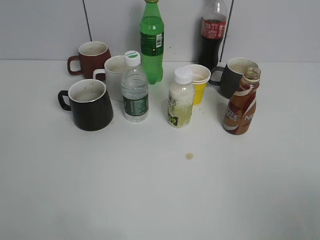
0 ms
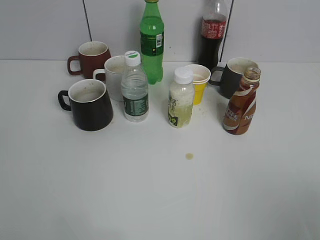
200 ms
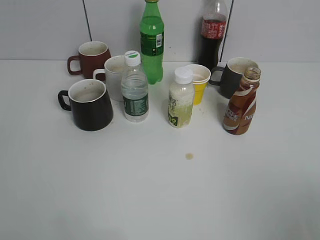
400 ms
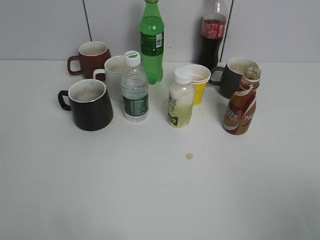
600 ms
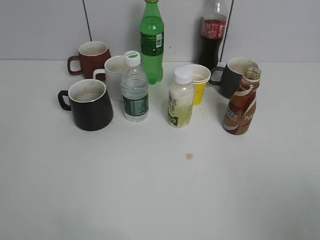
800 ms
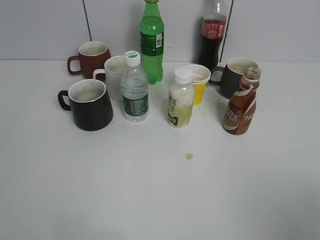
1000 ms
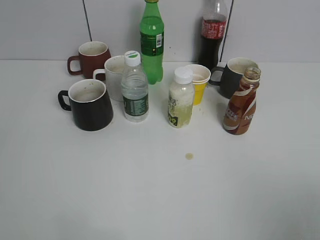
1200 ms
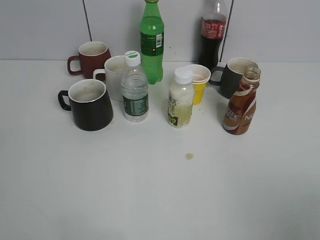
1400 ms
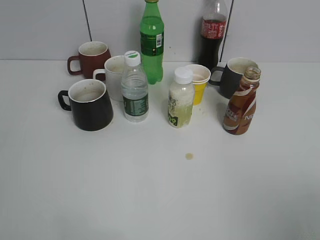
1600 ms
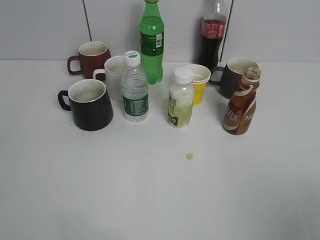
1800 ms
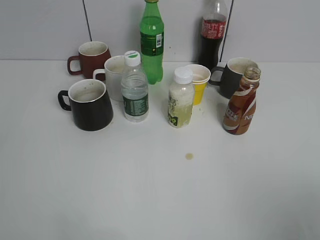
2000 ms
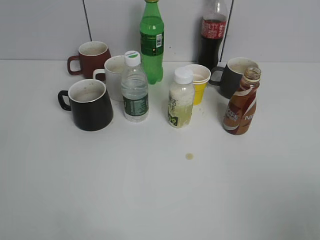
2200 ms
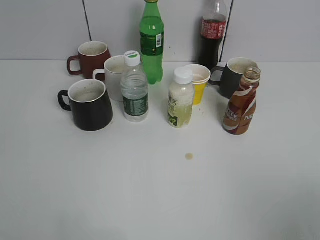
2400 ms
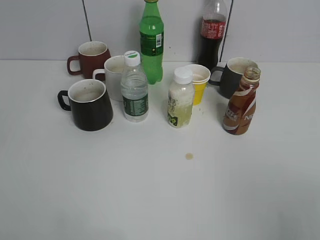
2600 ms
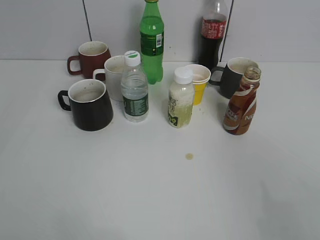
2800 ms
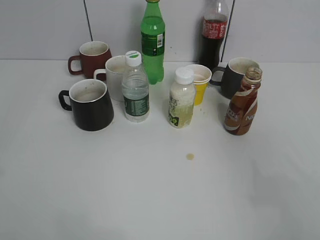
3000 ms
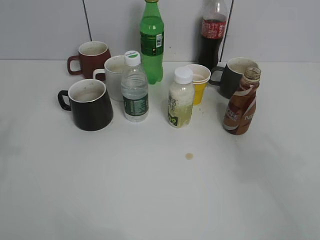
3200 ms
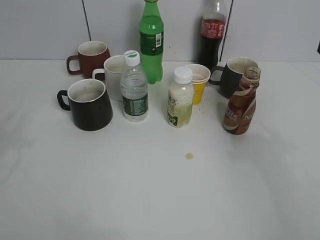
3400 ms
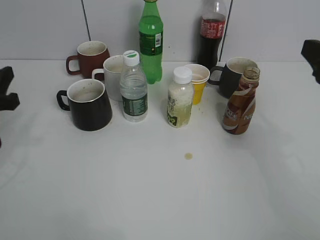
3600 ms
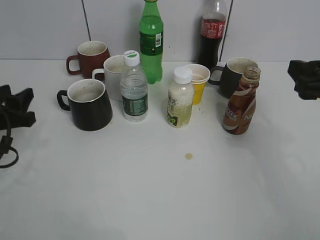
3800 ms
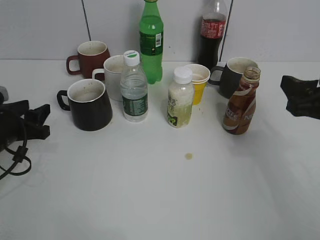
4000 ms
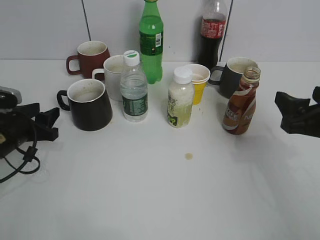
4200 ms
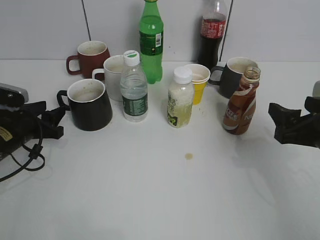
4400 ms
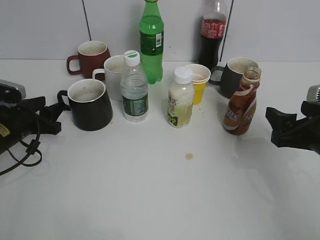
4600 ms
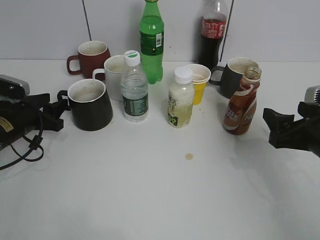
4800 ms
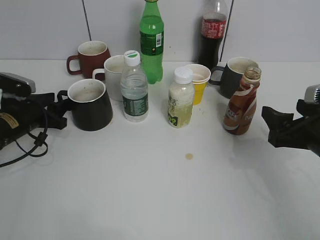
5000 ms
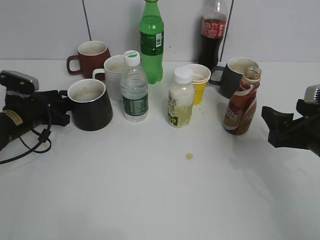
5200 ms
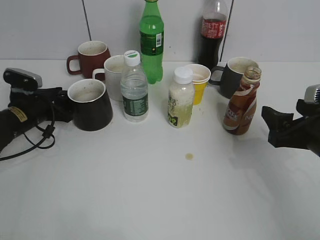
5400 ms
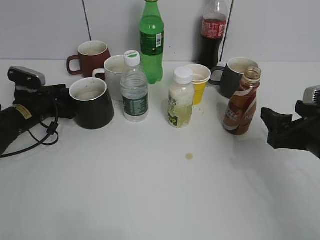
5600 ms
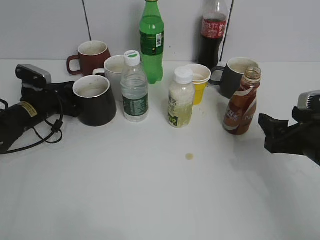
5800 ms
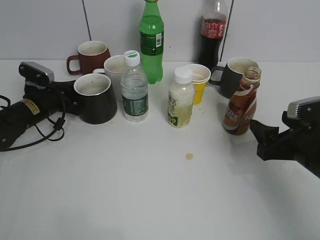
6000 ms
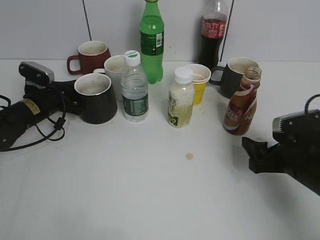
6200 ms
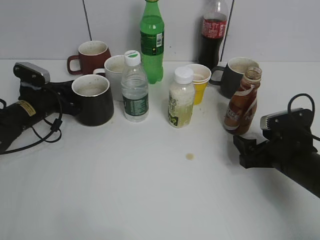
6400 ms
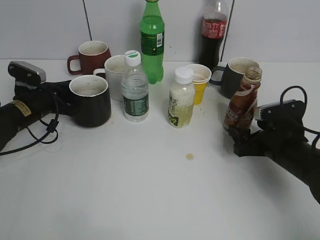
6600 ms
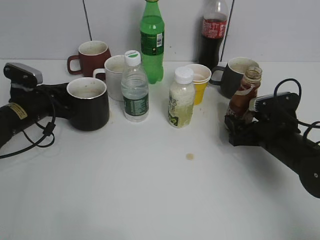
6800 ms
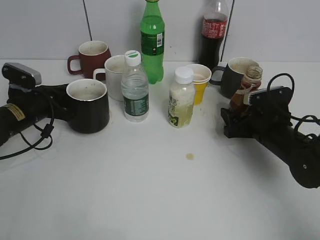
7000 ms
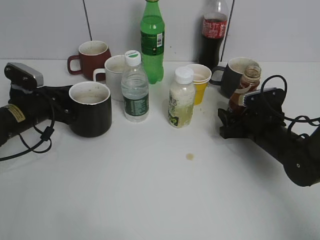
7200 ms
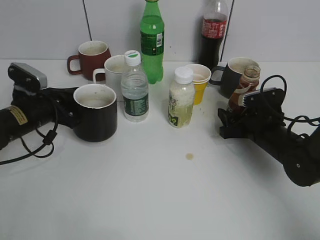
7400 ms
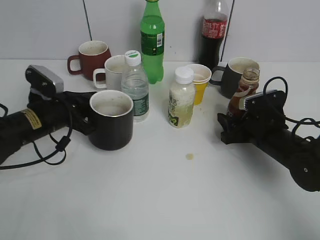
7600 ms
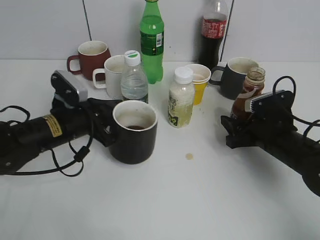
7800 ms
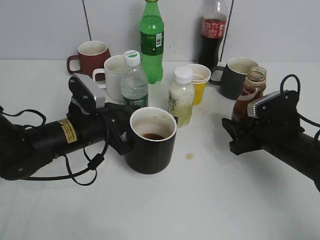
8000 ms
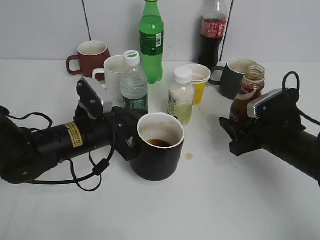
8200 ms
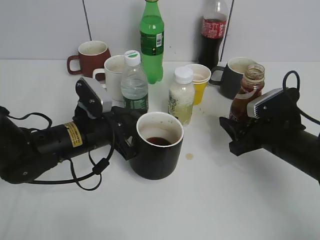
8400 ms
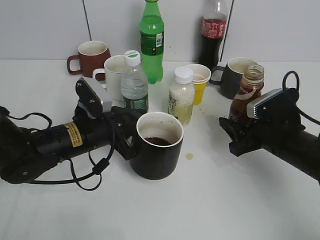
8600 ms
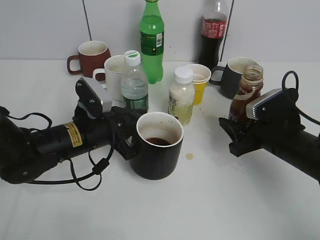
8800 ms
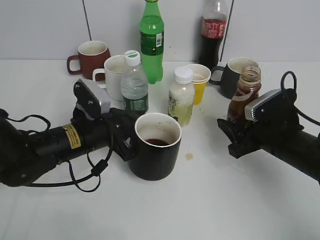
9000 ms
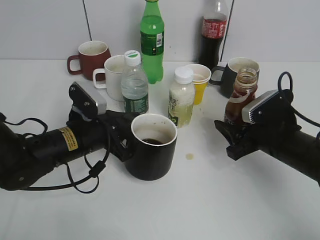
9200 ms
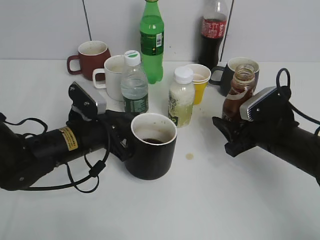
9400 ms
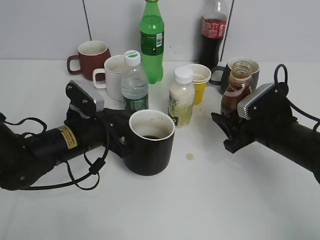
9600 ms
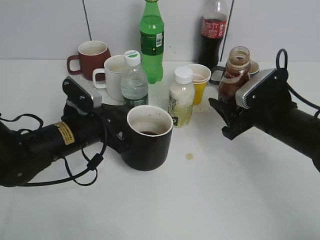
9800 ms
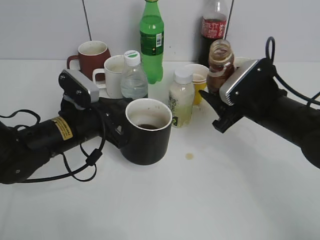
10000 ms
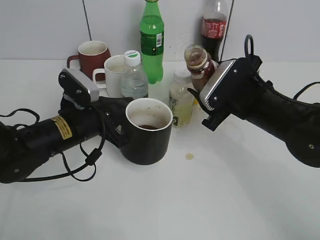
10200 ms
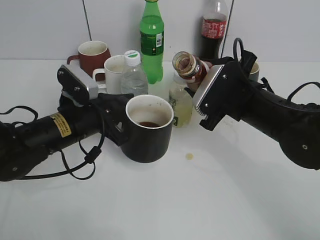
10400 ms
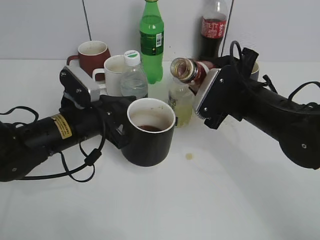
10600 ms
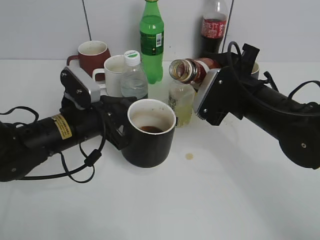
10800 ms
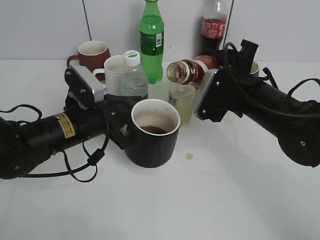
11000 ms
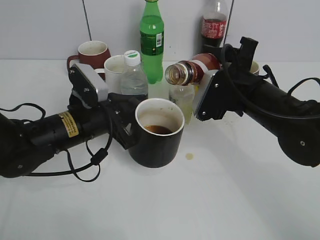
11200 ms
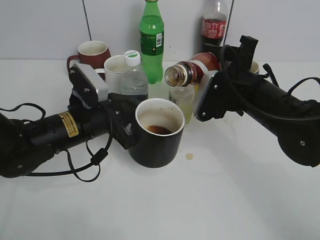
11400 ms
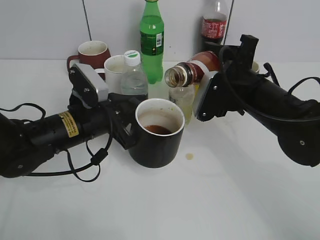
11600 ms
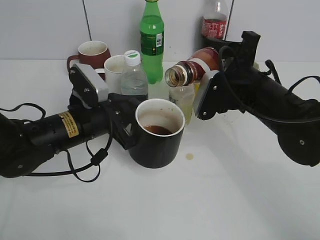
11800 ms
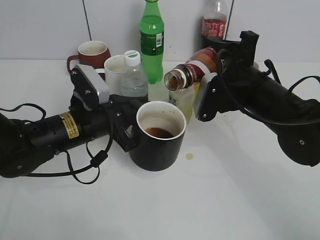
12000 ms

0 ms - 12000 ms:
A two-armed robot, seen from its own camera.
Step, 2200 ms - 5400 ms: Grasp the black cup with left gripper.
Step, 5600 ms - 6200 ms: Grasp the bottle with coffee with right gripper.
Step, 6400 ms - 7000 ms: Lift the black cup with left gripper.
1600 ms - 3000 ms: Both grippers travel together forward, about 10 cm.
3000 ms - 4400 ms: The two grippers go some 25 cm downward and forward. The left gripper opens its fingers.
4400 ms - 6000 ms: The left gripper travels forward by some 10 cm, and closes up.
6000 ms - 7600 ms: The right gripper is displaced forward and downward by approximately 10 cm, and closes up. The left gripper goes about 10 cm backward.
7600 ms - 9000 ms: The right gripper moves some 5 cm, while the left gripper shifts about 10 cm to the right.
9000 ms - 10400 ms: The right gripper shifts about 10 cm to the left and upward.

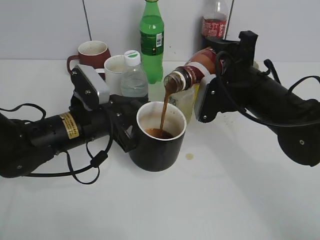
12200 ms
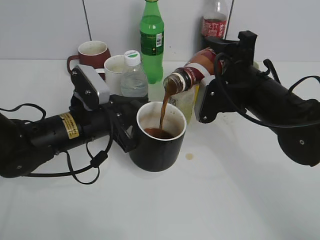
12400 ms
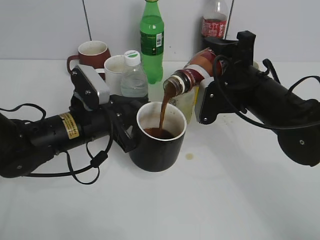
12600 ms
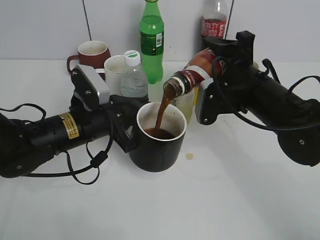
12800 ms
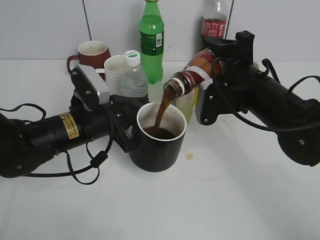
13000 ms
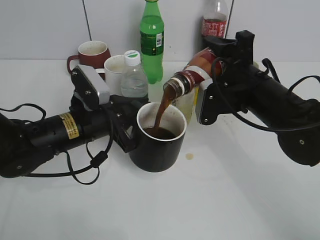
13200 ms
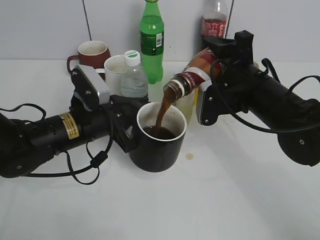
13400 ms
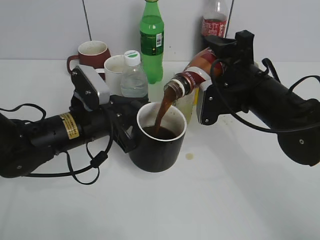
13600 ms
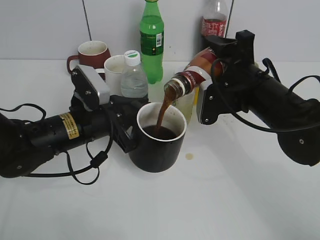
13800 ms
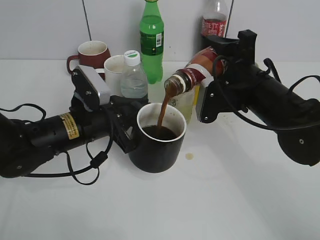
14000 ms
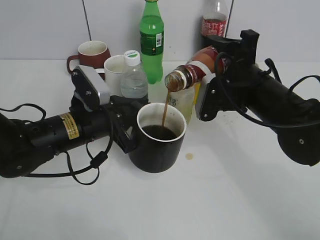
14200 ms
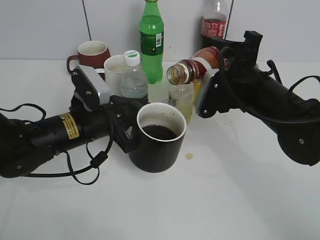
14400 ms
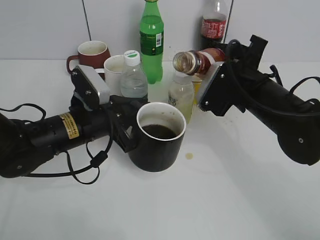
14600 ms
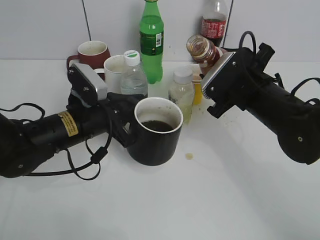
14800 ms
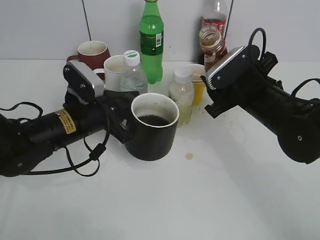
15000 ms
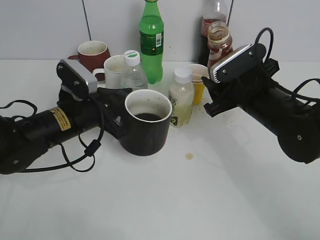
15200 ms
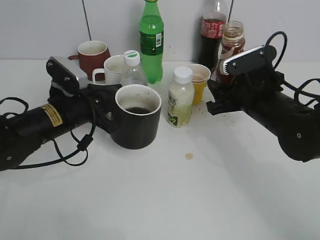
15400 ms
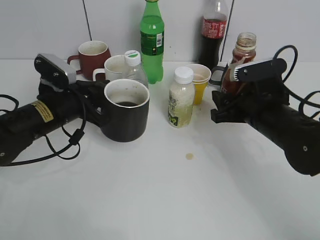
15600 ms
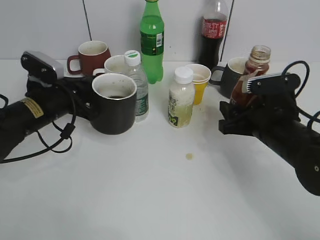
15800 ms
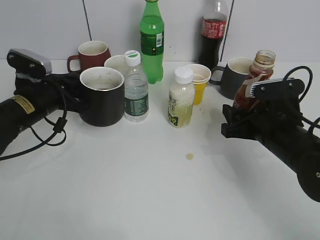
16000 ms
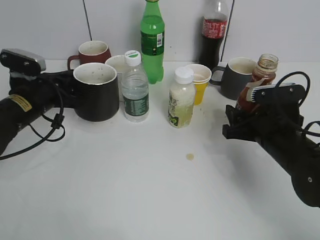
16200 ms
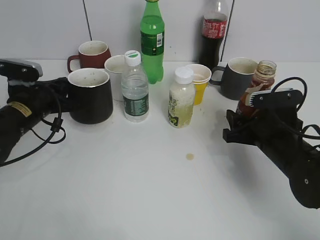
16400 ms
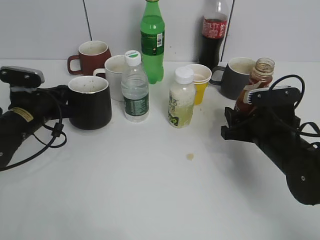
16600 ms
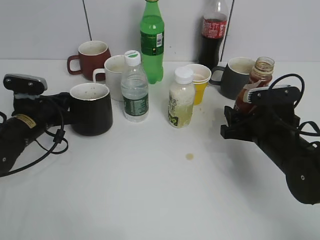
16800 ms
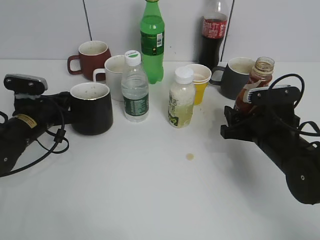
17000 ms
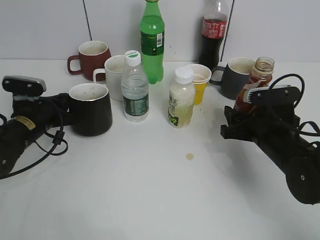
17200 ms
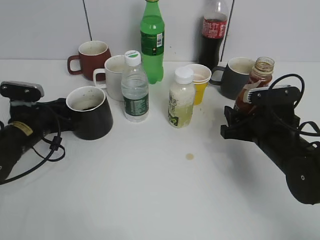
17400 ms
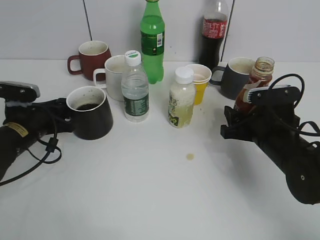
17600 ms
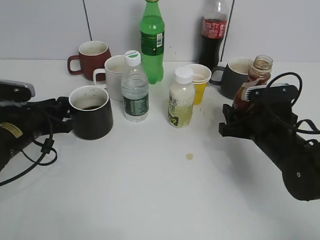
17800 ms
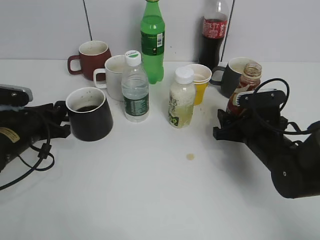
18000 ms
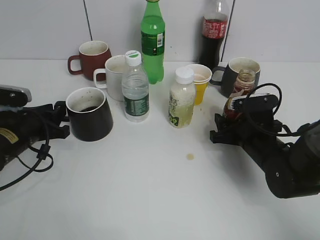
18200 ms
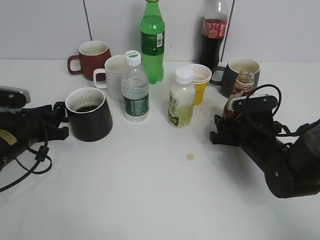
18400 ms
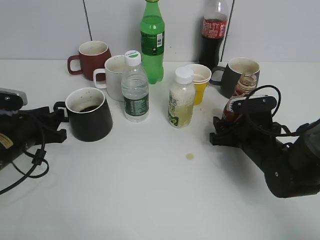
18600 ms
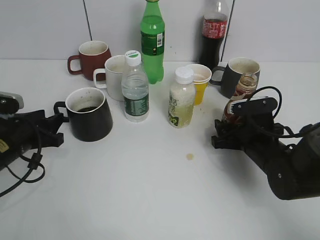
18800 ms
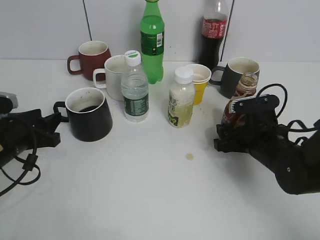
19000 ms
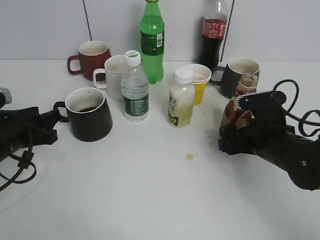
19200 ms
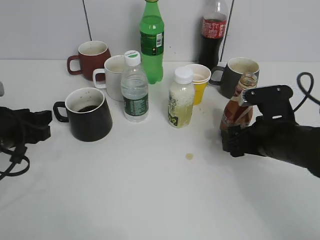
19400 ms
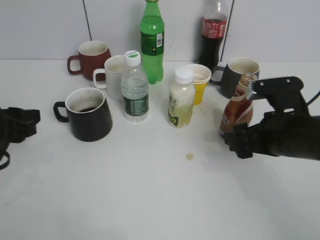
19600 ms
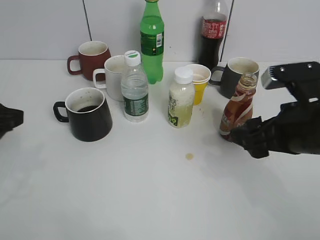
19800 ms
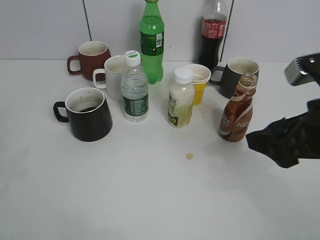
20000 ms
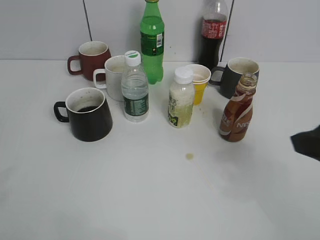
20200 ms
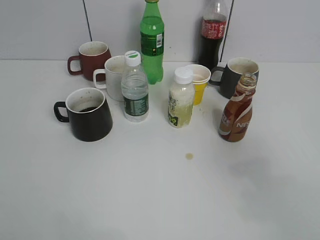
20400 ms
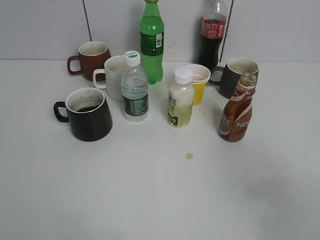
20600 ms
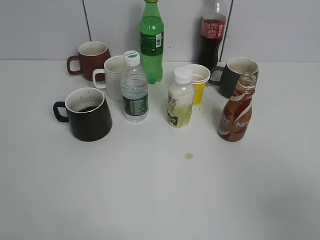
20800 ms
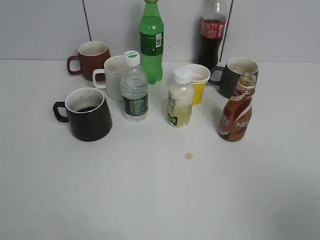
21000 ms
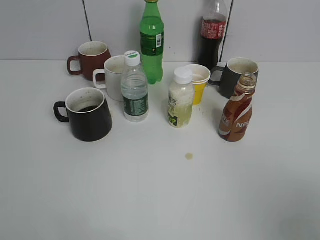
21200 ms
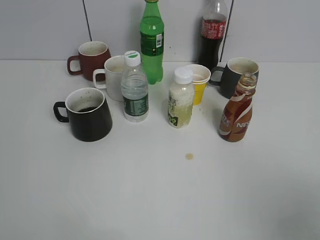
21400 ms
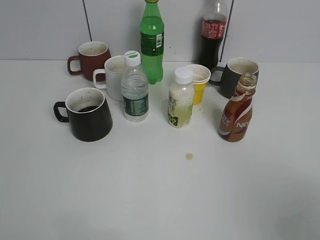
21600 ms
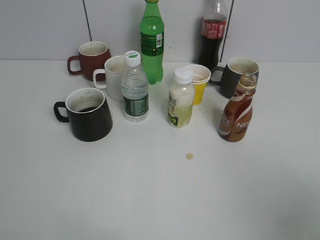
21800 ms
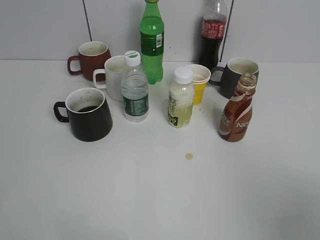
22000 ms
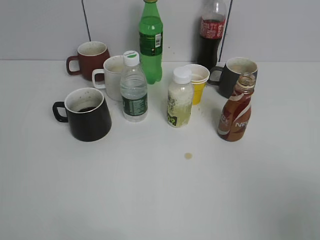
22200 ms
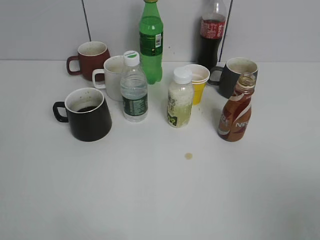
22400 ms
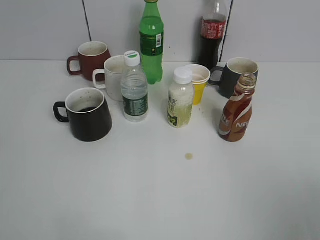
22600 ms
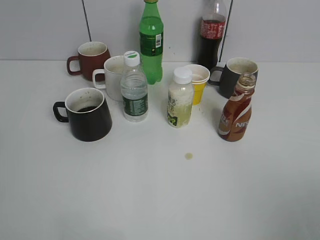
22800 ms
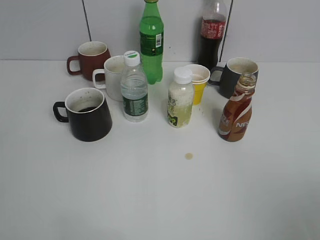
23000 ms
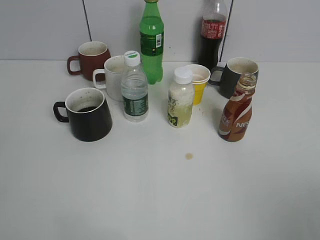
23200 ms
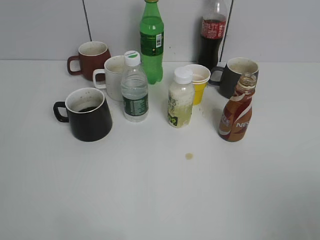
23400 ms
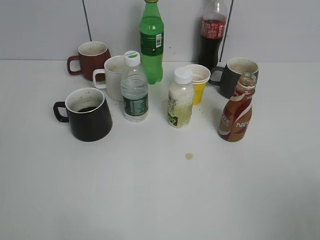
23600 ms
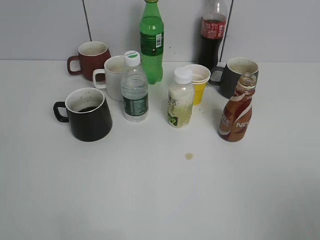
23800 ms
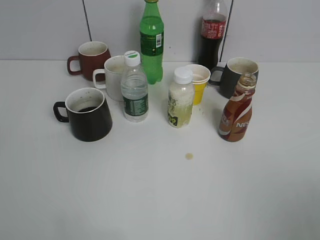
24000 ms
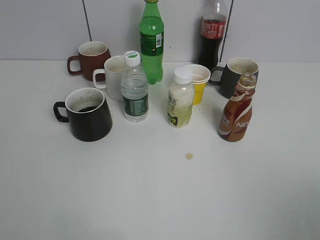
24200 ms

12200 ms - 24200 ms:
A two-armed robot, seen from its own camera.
Step, 12200 ms - 14600 ms: Pour the coffee from bottle to cup with right gripper.
Step, 14800 ms - 19200 ms: Place the coffee bottle on the table with right gripper.
12200 ms - 13800 ms: The grippers move only a little.
15200 ms - 16600 ms: The left gripper goes some 10 cm to the left; the right gripper shifts roughly 5 cm downward.
16600 ms - 18200 ms: The left gripper opens.
18200 ms - 19800 ms: The grippers both shift upward and backward by about 15 cm. The right gripper opens its fingers.
19800 ms - 21200 ms: The right gripper heads backward, to the right and upward, covering some 25 cm. Meanwhile the left gripper travels backward and upward by about 20 cm.
22600 ms - 24200 ms: Neither gripper changes place.
